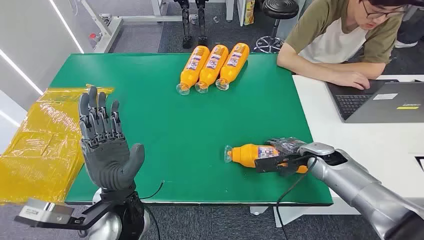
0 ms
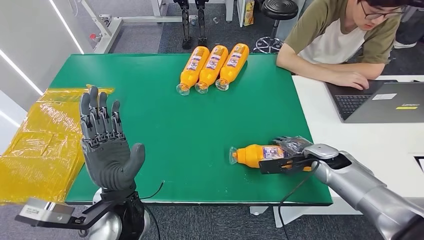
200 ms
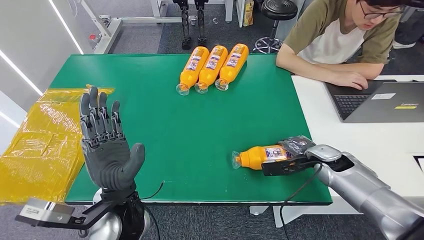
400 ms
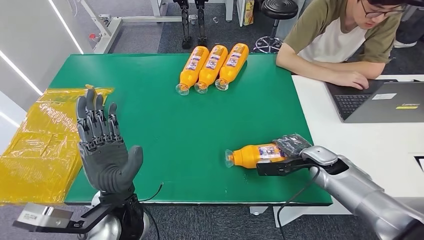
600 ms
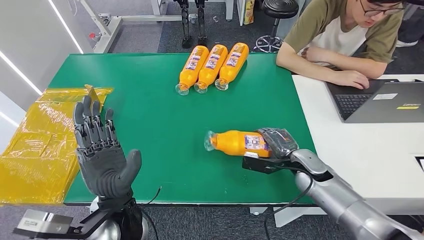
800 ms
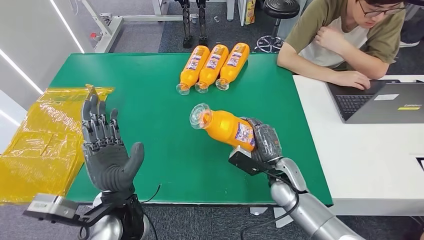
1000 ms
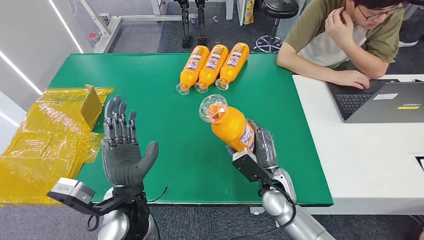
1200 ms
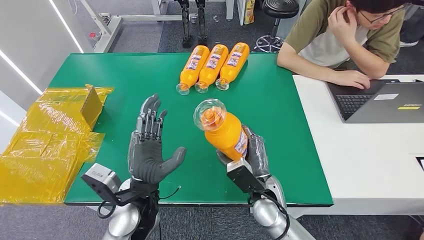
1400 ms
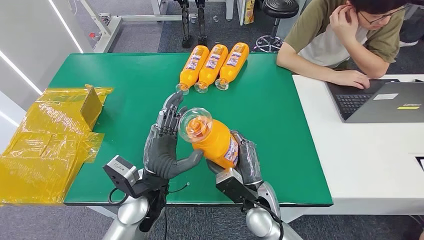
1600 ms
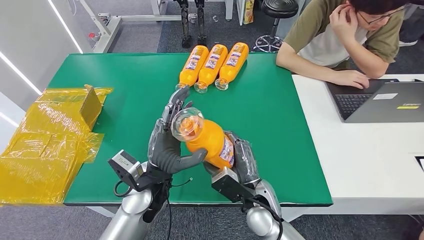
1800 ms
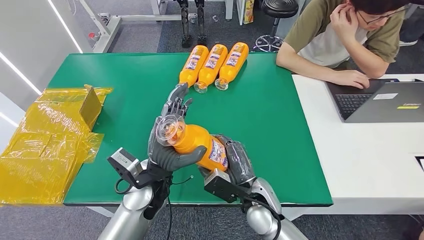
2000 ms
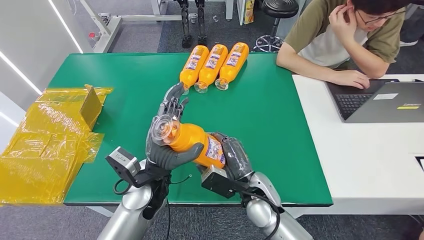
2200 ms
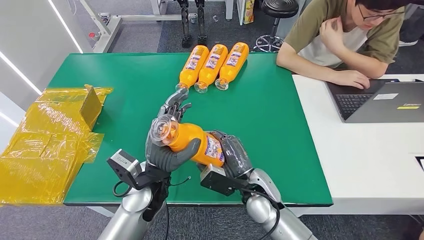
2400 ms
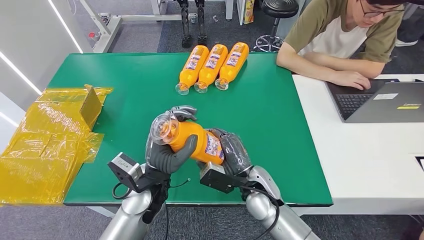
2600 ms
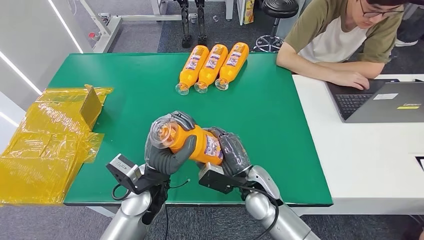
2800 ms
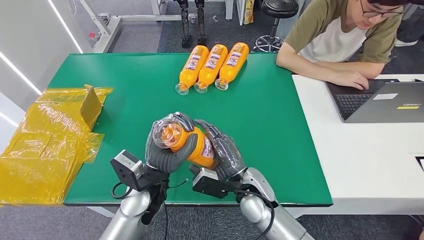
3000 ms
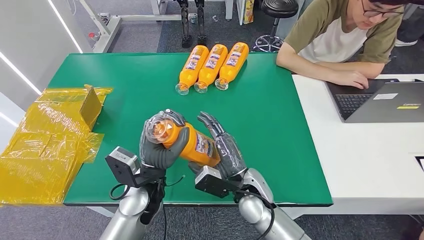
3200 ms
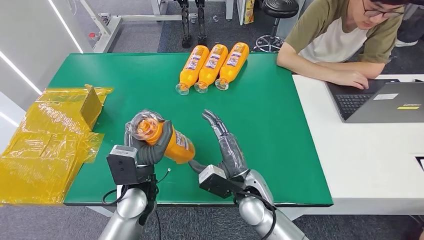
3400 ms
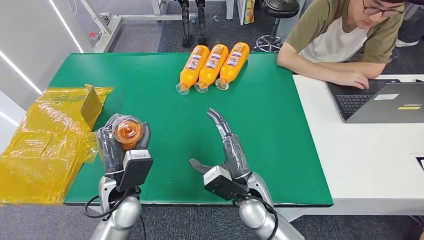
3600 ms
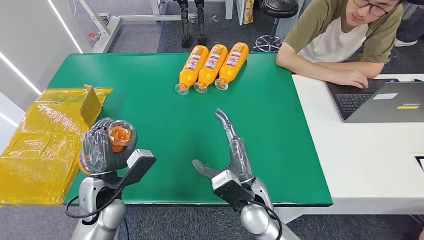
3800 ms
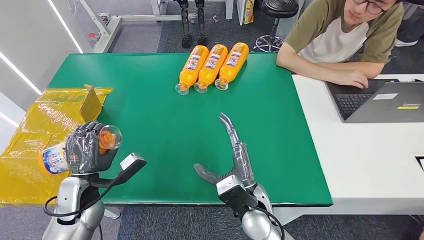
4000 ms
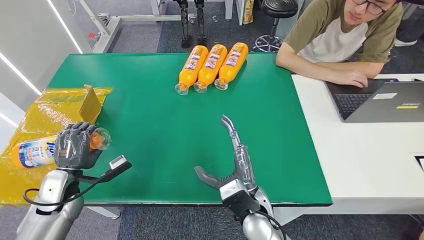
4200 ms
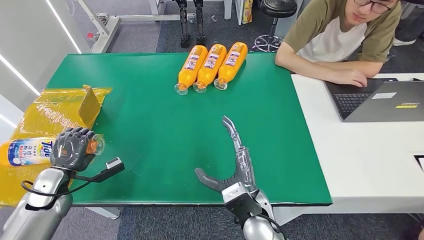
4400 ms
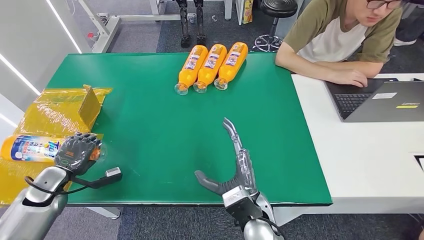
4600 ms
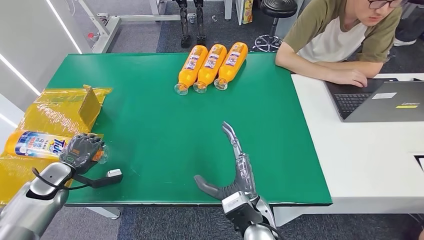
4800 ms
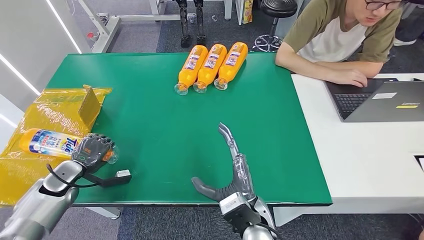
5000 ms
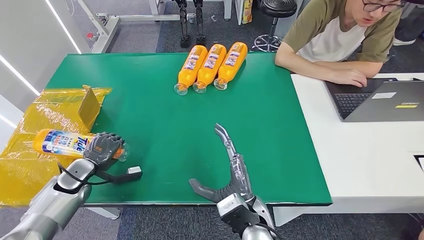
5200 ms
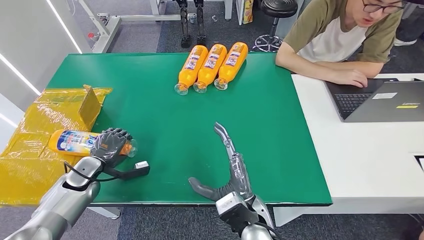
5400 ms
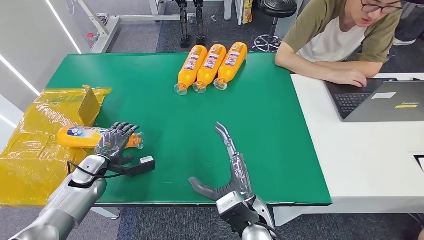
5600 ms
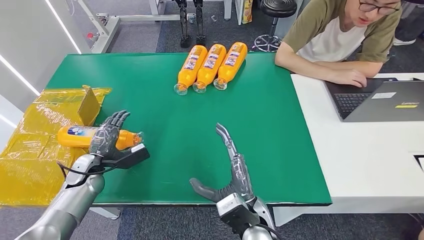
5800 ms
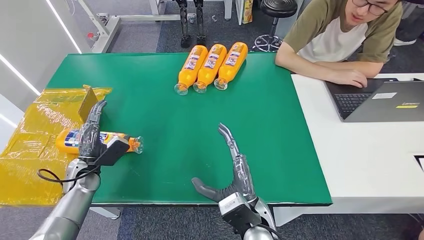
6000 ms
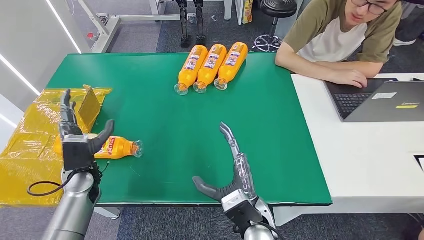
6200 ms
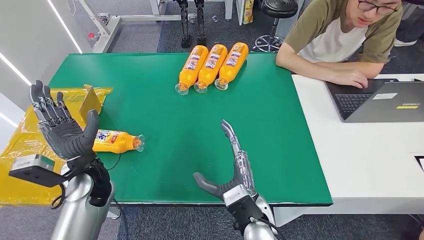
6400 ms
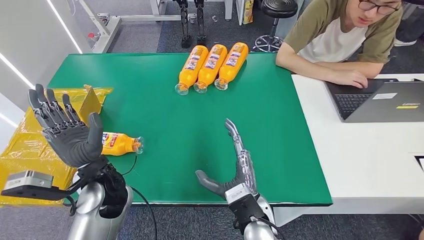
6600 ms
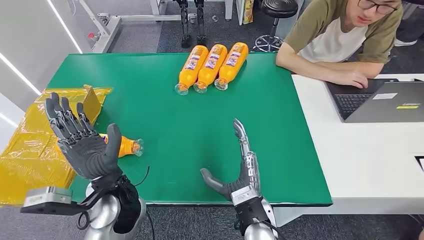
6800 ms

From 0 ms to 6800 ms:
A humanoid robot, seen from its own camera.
Step, from 0 ms to 1800 ms: Pick up the bottle from the table.
Step, from 2000 ms to 6600 ms: Turn the bottle to the front side.
From 2800 ms to 4000 ms: The left hand travels to the left by about 20 cm.
From 4000 ms to 5400 ms: The left hand travels to the left and forward by roughly 10 cm.
From 5400 ms to 6800 ms: The left hand moves to the right and upward, some 25 cm.

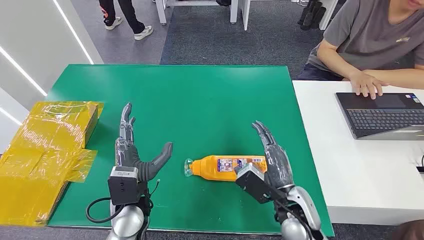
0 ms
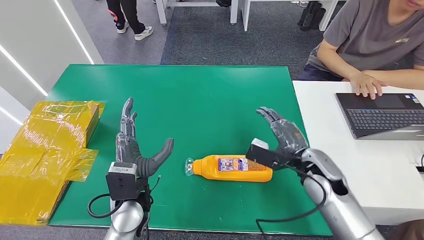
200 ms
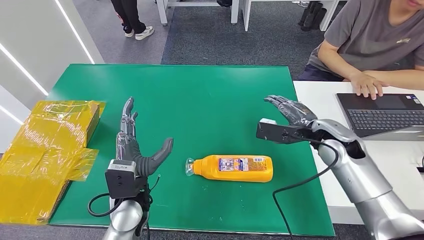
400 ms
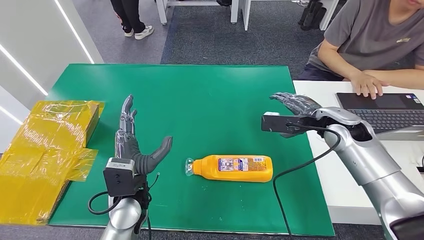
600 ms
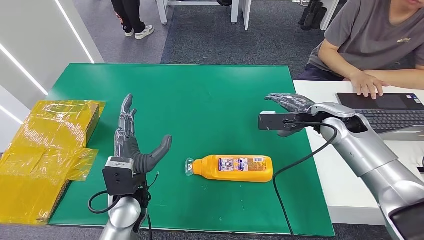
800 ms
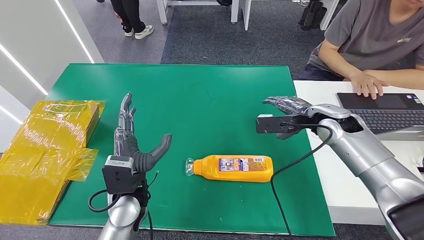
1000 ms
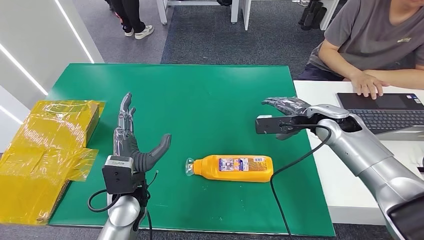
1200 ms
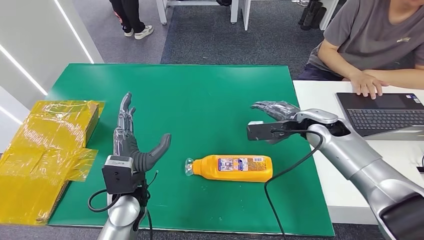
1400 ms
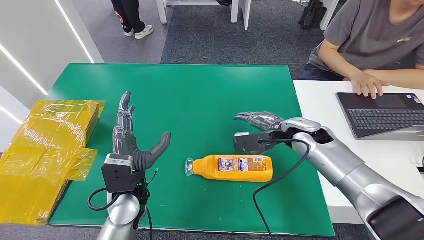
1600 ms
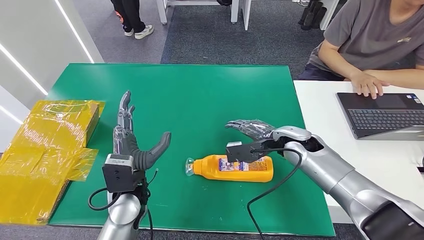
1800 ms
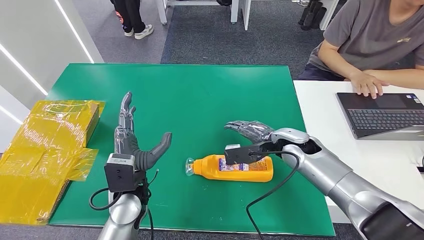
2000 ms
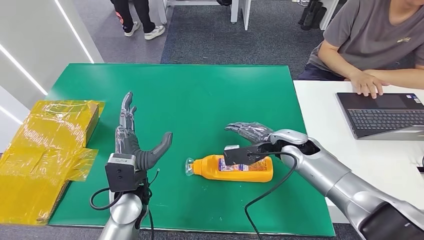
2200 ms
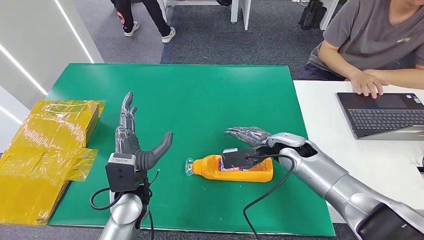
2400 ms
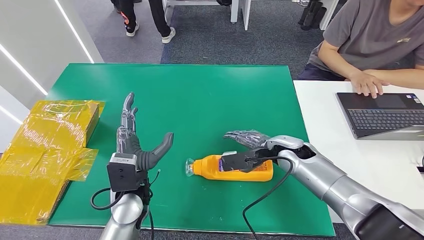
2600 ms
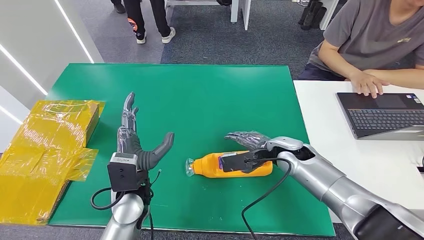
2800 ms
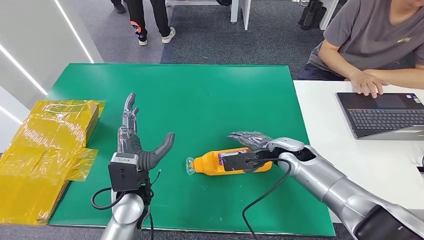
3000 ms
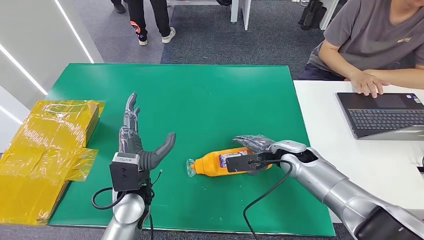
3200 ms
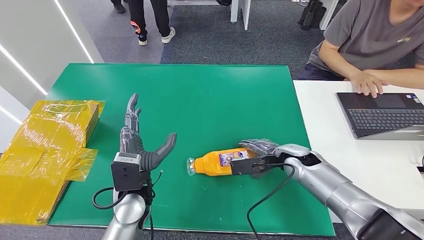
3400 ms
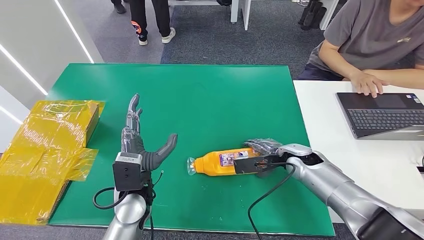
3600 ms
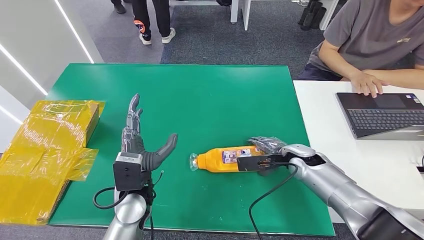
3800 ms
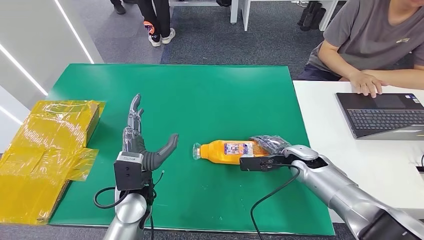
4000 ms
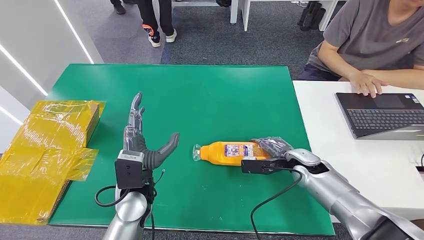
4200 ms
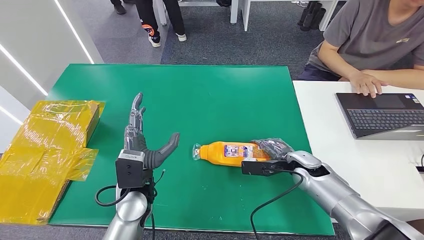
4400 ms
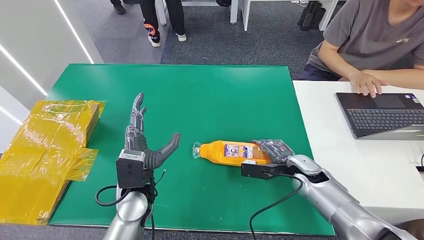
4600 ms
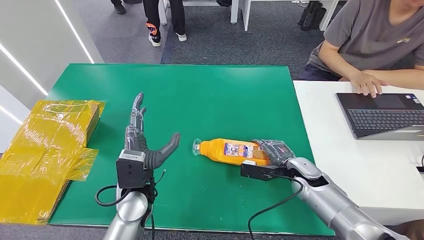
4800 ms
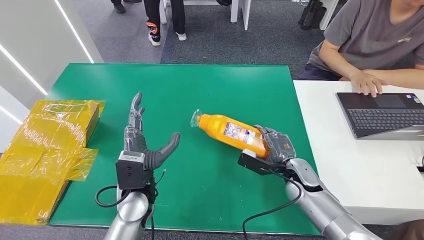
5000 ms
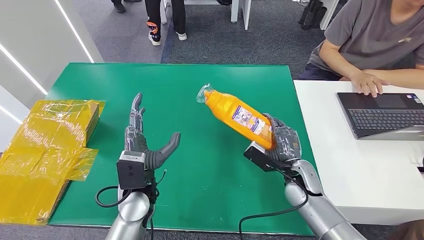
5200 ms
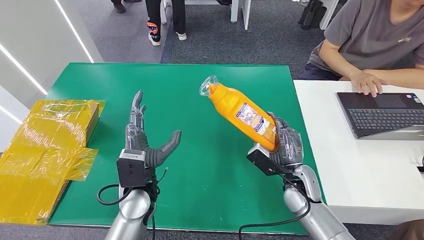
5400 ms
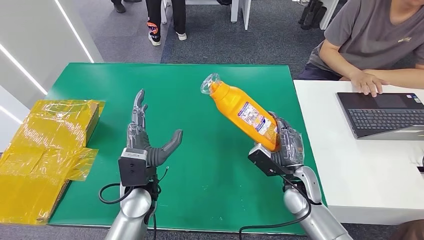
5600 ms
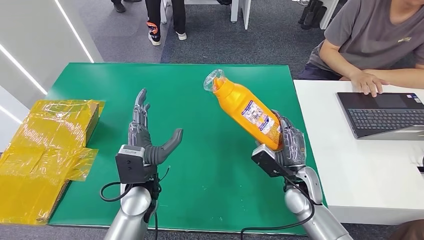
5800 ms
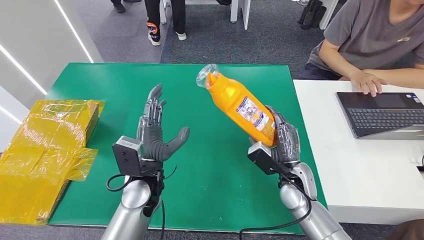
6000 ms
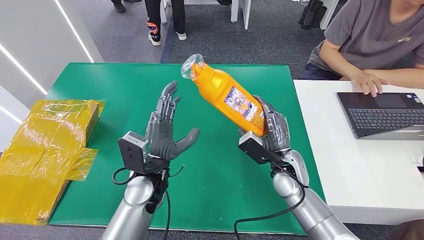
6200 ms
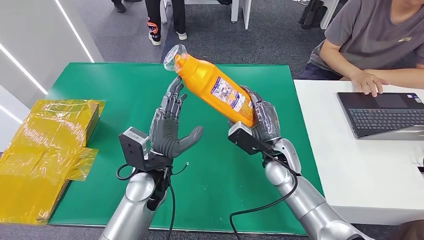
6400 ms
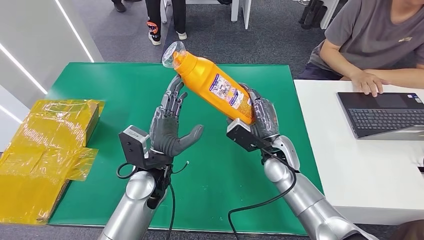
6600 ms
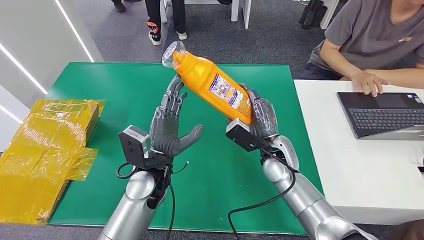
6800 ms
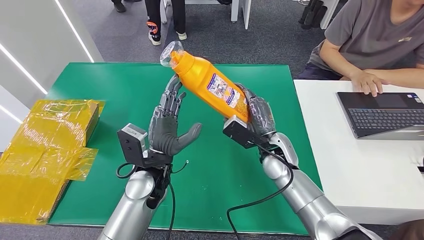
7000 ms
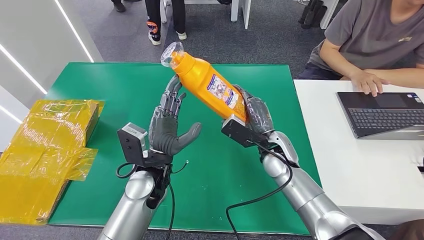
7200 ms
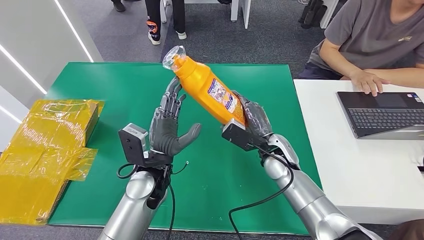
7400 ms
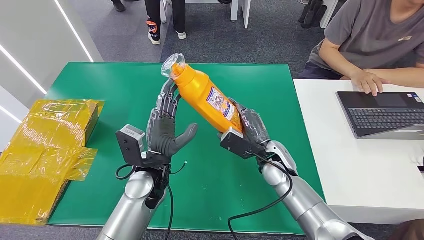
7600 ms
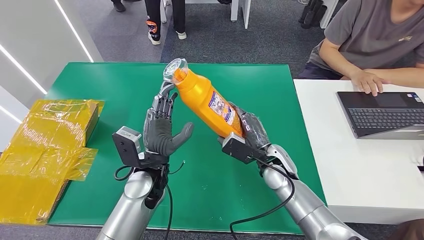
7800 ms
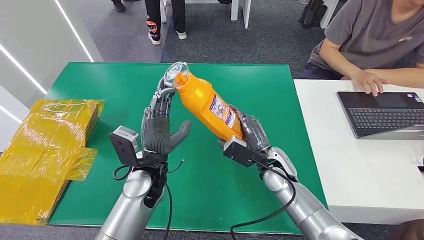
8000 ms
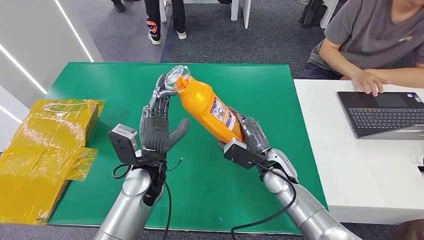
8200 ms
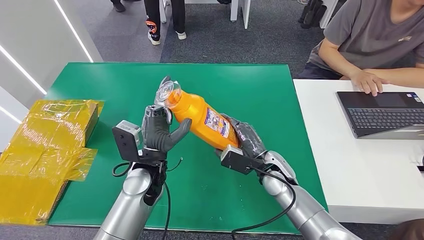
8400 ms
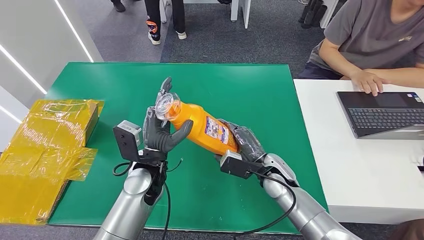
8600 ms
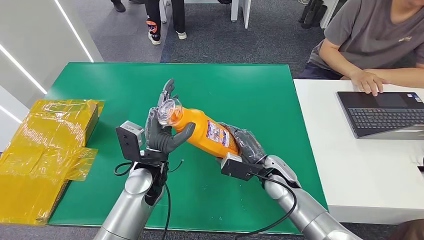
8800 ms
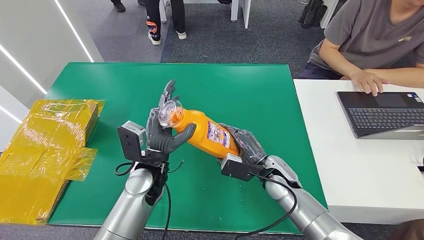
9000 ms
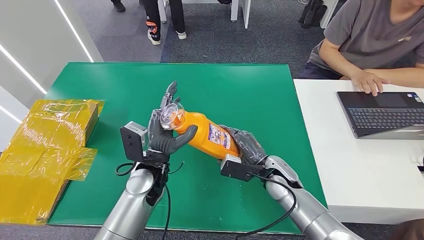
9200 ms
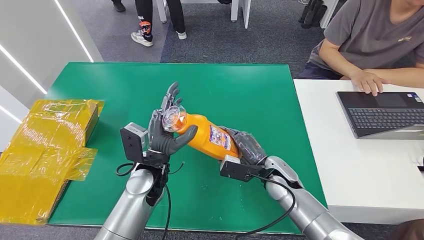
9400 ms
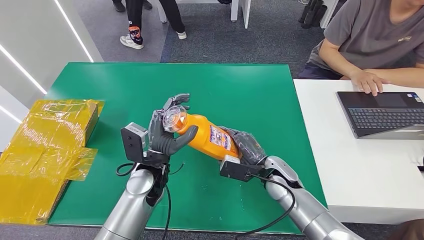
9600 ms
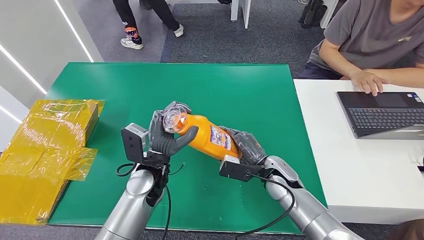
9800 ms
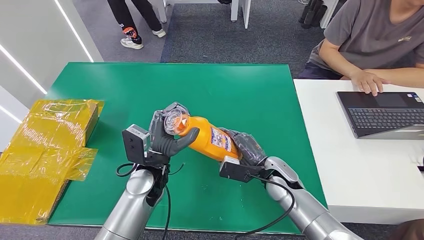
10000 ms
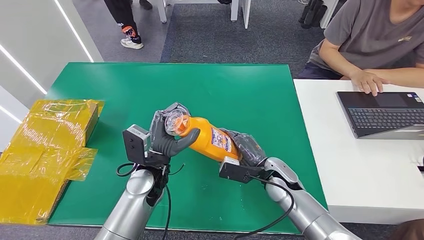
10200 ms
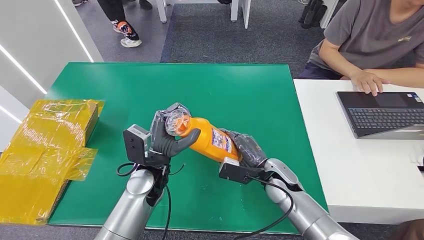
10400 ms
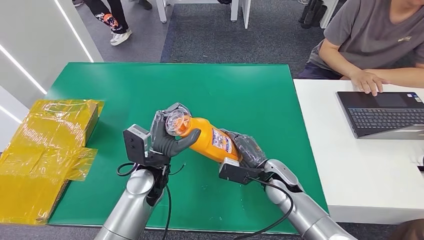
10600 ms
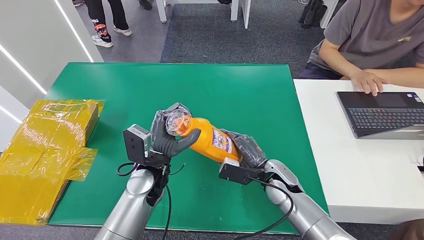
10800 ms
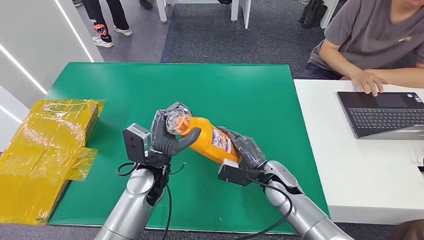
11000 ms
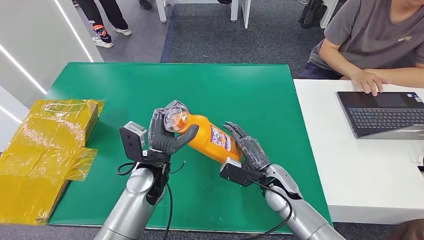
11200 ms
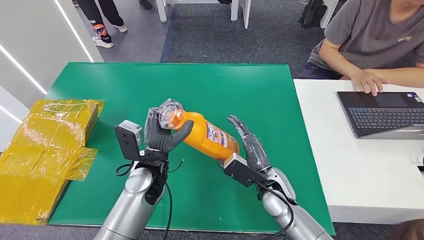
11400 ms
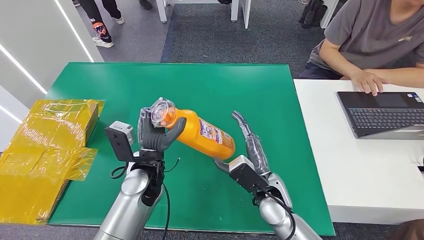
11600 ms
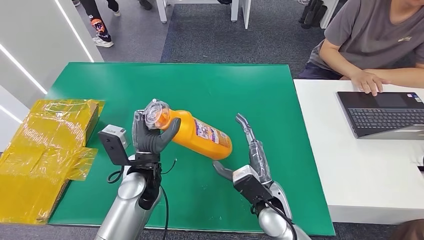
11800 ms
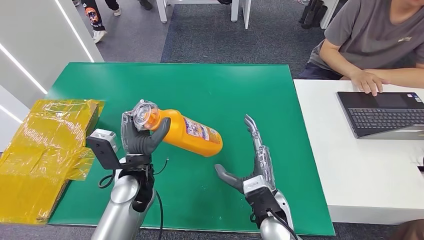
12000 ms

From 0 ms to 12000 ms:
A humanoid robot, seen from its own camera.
Step, from 0 ms to 7600 ms: Pick up the bottle from the table.
From 1600 ms to 3000 ms: The right hand travels downward by some 5 cm.
From 3000 ms to 4400 ms: The right hand shifts about 10 cm to the right and downward.
From 4400 ms to 6000 ms: The right hand shifts approximately 10 cm to the left and backward.
From 6000 ms to 7600 ms: The right hand moves to the left, some 5 cm.
From 7600 ms to 10400 ms: The hands stay close to where they were, moving slightly.
From 10400 ms to 12000 ms: The right hand shifts approximately 10 cm backward.
